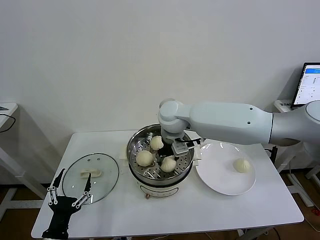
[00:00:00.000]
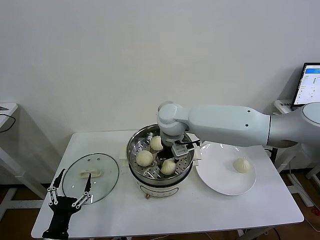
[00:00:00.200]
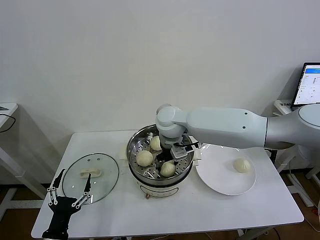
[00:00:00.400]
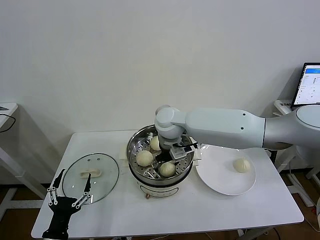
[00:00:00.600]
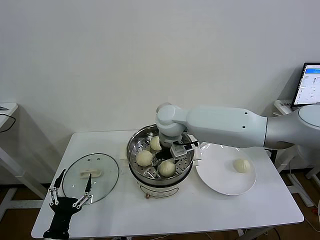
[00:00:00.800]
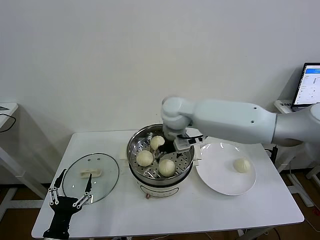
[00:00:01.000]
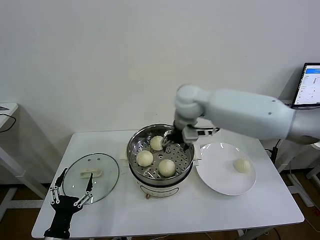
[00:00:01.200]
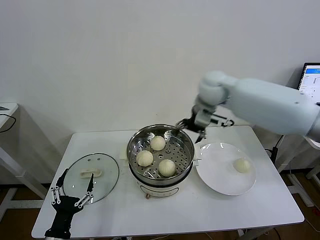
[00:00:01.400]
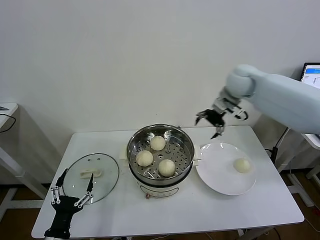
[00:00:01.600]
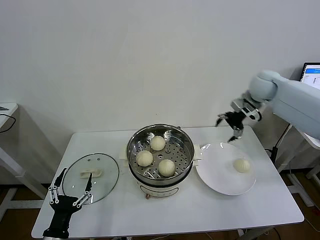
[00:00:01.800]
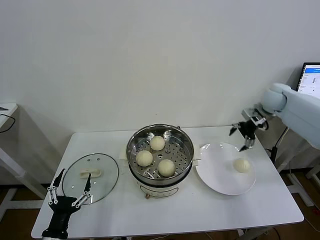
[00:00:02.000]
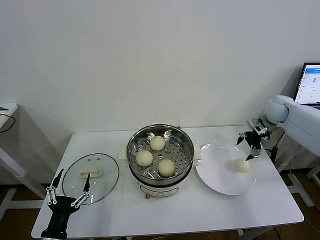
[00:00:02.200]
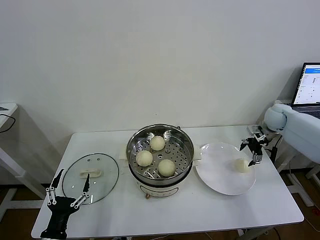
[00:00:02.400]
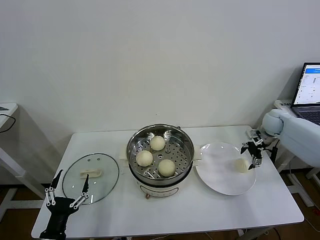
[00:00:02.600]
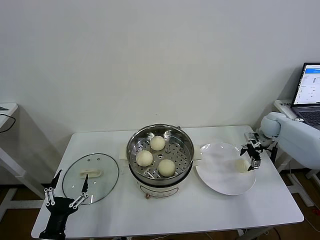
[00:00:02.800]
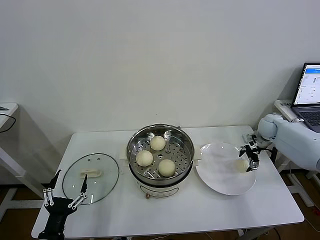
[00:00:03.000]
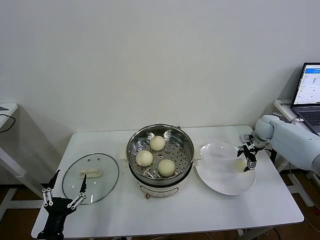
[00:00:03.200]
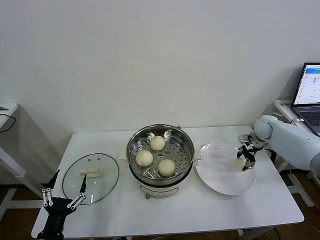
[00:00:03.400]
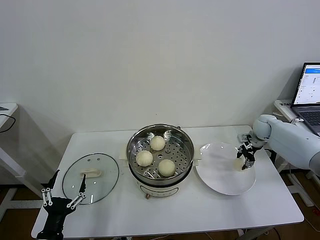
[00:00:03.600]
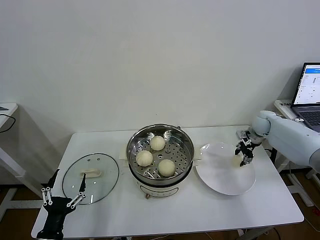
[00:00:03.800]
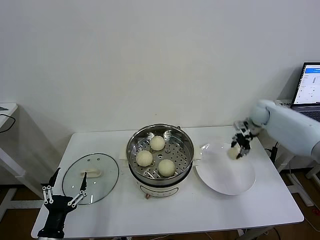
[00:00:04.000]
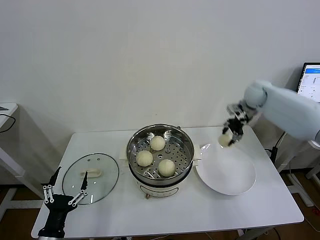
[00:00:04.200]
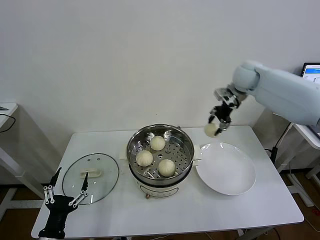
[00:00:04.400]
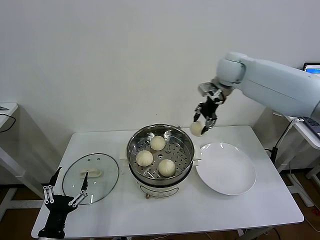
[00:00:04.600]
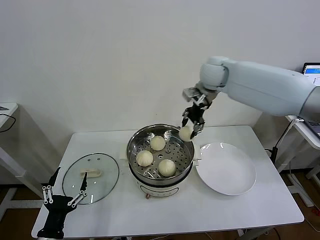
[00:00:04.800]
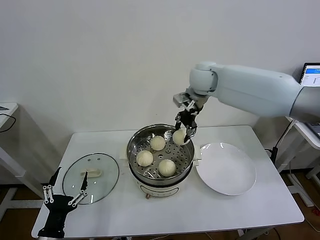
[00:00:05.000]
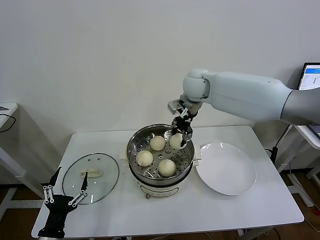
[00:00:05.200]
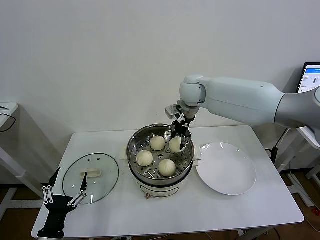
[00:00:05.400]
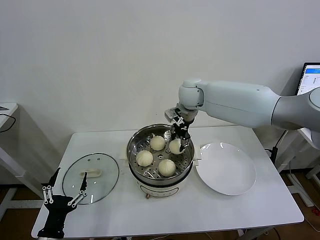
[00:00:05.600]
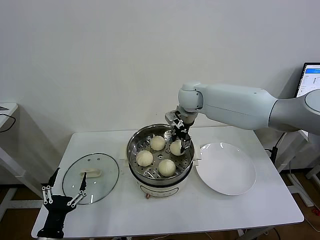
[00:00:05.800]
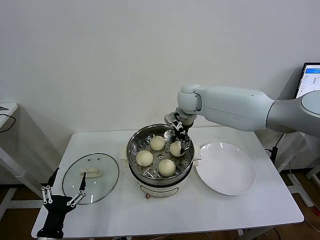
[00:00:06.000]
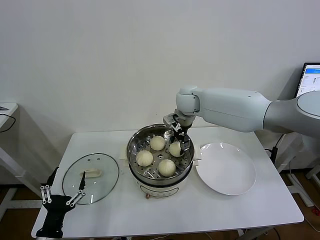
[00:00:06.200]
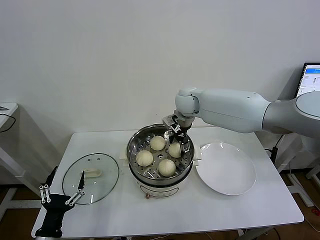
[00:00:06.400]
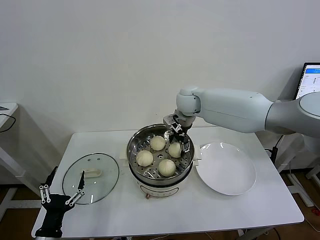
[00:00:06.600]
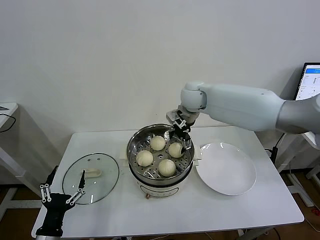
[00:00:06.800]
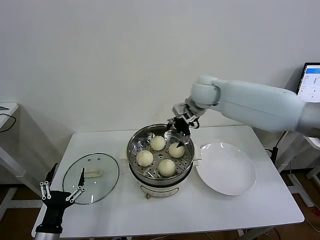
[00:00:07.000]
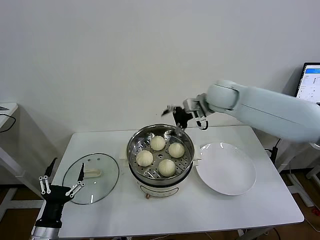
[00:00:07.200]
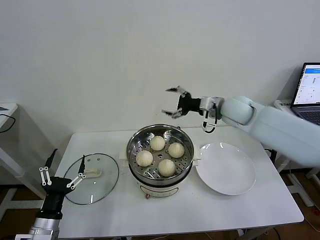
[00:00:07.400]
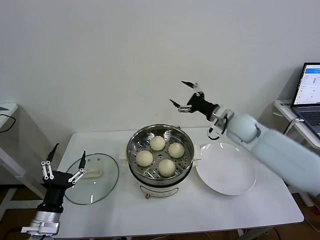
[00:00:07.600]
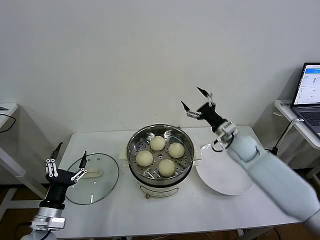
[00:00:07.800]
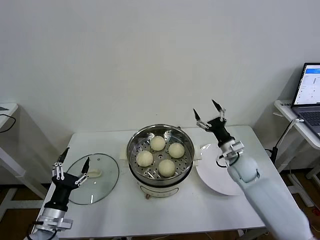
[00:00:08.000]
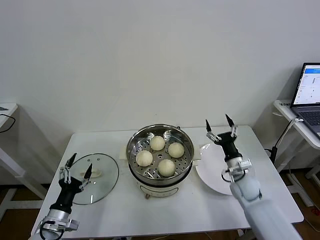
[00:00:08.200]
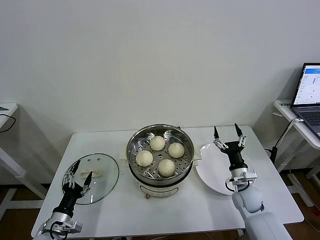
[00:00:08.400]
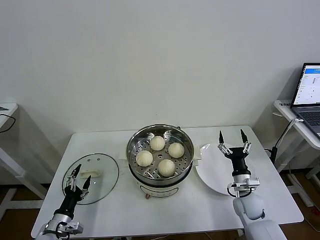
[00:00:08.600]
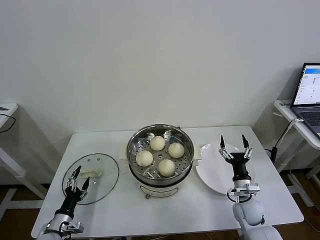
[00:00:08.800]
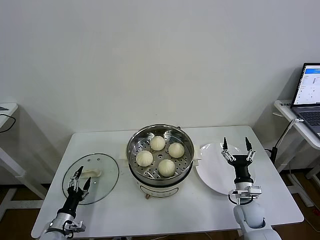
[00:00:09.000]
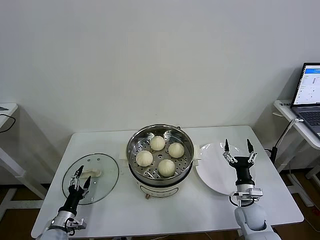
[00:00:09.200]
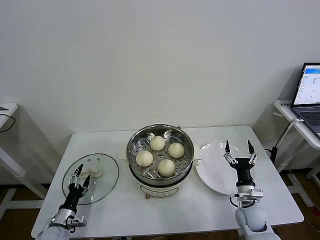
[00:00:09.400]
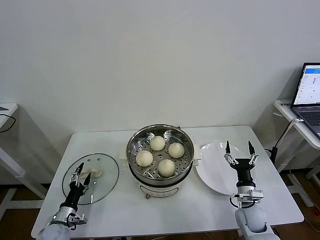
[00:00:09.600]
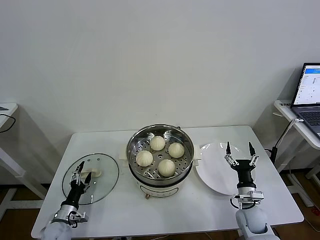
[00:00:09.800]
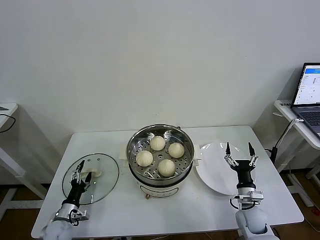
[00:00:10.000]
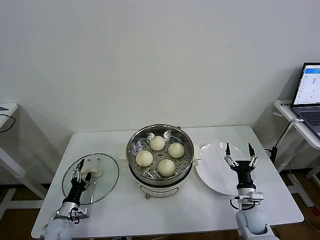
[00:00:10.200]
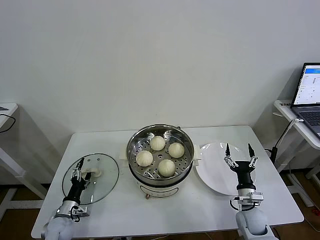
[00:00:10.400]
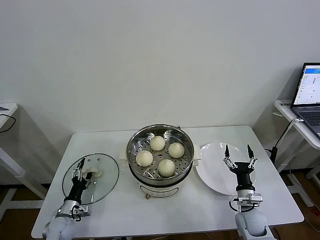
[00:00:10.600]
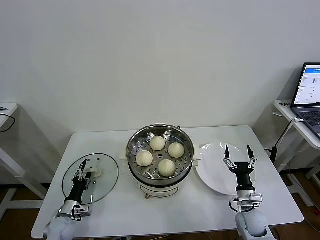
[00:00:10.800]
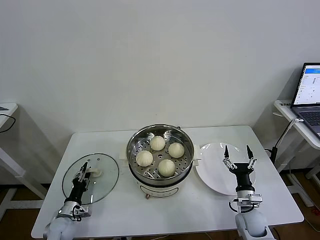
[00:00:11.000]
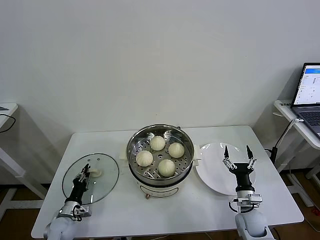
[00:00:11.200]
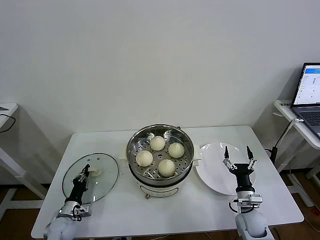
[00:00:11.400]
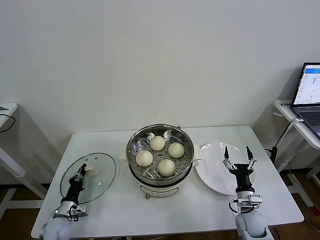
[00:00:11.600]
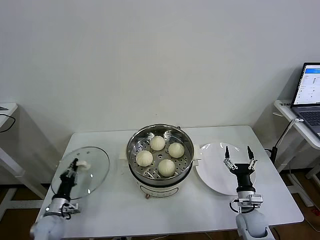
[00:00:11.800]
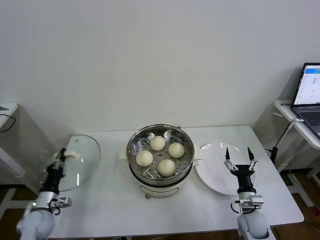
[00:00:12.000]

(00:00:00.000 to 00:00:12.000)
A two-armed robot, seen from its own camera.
Task of the whole recording: take steamed baozi put them in steamer then cover it.
Step, 00:00:00.800 - 00:00:03.400: Grasp the baozi in the plate with right gripper.
Step, 00:00:03.600 - 00:00:06.400: Place the baozi on the steamer with right gripper.
Step, 00:00:06.600 - 00:00:11.800: Grasp the pot lid with left gripper.
00:00:00.000 - 00:00:01.600: The right gripper is displaced to the right by approximately 25 cm, and opens up.
00:00:01.600 - 00:00:03.000: The right gripper shifts about 25 cm downward and to the right.
00:00:03.000 - 00:00:04.400: The right gripper moves upward and to the left, some 25 cm, and closes up.
00:00:04.400 - 00:00:06.000: The right gripper goes about 20 cm to the left and downward.
00:00:06.000 - 00:00:07.600: The right gripper moves to the right and backward, roughly 20 cm, and opens up. The left gripper is displaced forward by about 5 cm.
00:00:07.600 - 00:00:09.000: The left gripper goes approximately 15 cm downward, while the right gripper moves downward and backward, about 30 cm.
00:00:09.000 - 00:00:10.400: The left gripper heads forward, covering some 5 cm.
00:00:10.400 - 00:00:12.000: The left gripper shifts about 5 cm upward, and closes its fingers.

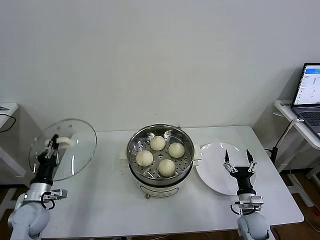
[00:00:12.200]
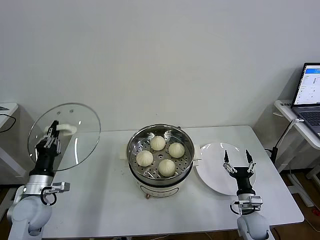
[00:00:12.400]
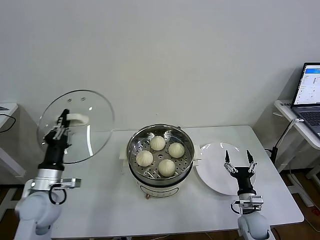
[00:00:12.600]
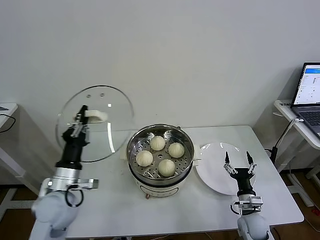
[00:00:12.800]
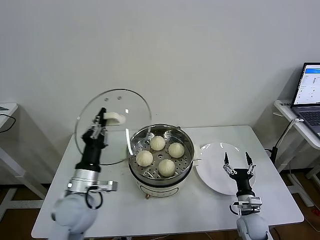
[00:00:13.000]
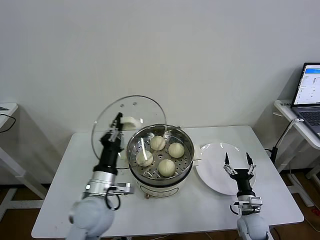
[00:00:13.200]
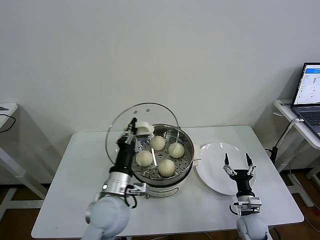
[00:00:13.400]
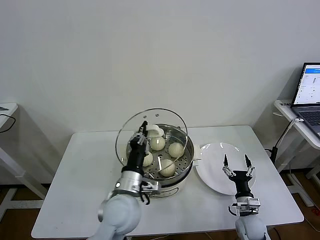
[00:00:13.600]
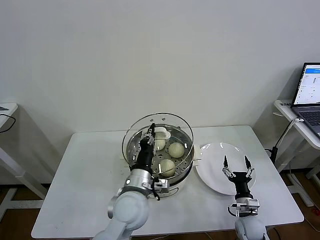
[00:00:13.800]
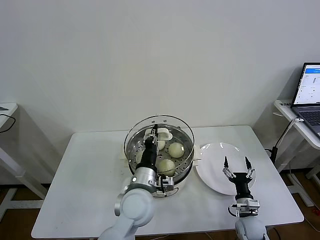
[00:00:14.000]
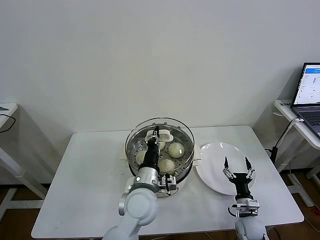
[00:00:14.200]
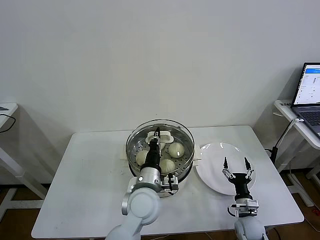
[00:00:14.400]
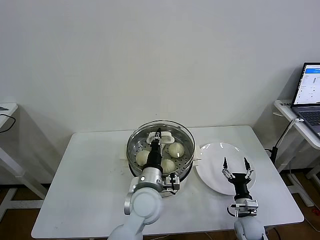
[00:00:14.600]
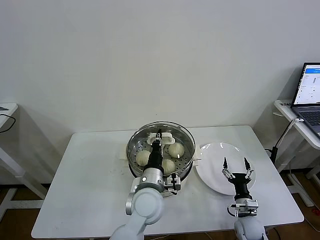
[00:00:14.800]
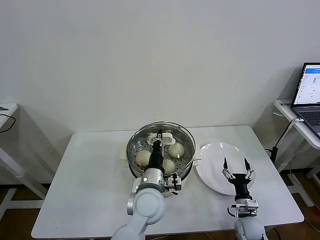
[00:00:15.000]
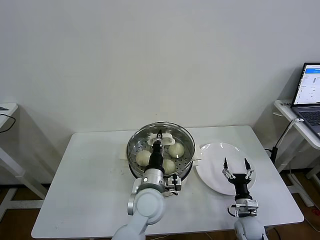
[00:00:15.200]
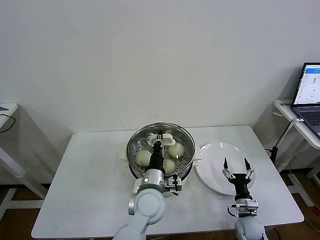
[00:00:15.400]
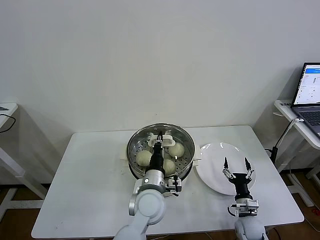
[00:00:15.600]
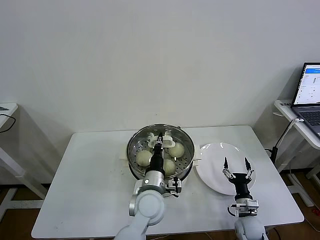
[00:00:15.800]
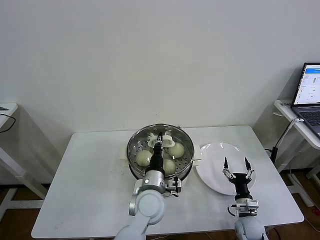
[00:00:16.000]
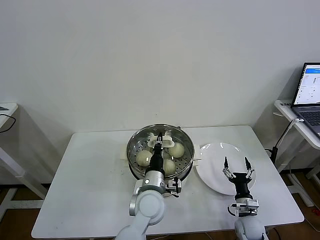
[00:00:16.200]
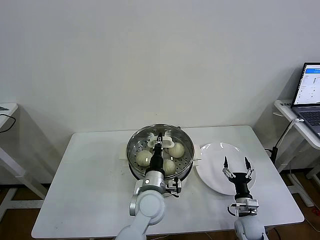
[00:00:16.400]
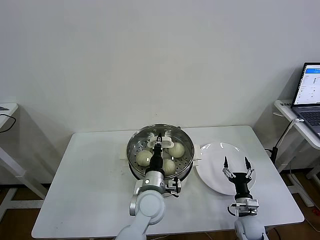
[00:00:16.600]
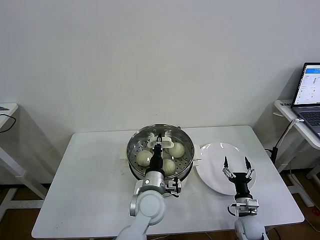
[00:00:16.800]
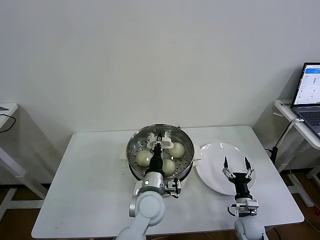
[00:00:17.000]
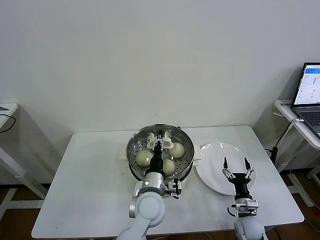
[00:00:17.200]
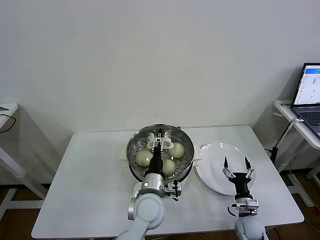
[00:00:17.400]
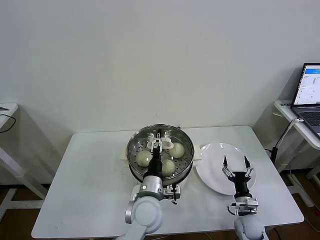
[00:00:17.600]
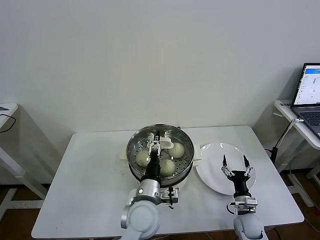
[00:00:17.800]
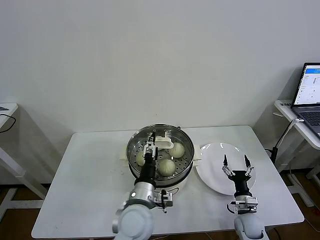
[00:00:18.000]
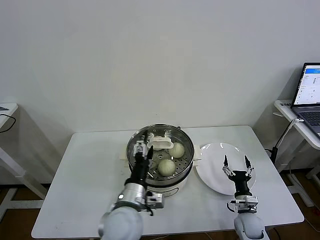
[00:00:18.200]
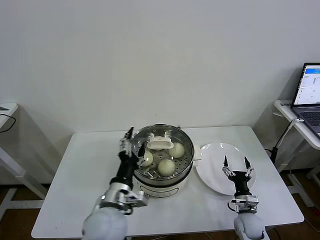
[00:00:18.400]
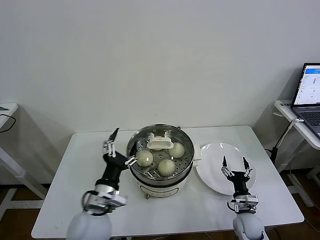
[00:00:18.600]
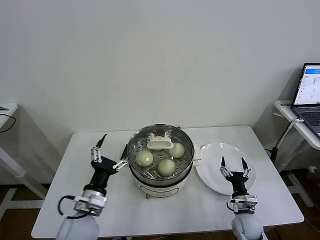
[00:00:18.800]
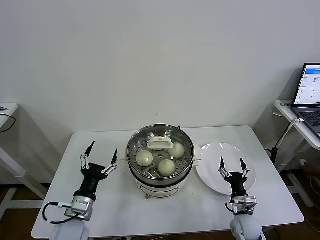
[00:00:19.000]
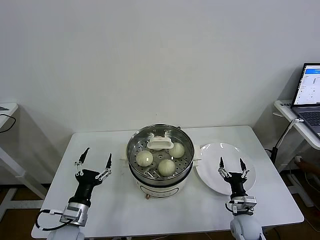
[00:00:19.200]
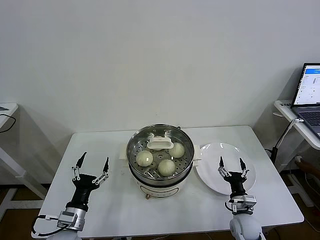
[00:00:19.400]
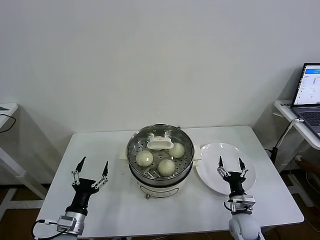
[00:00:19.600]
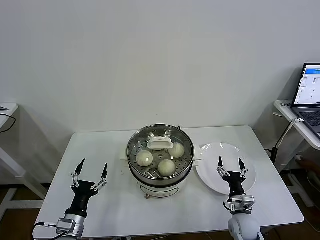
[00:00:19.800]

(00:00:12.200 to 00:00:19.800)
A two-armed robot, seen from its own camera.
Task of the whole recording: take steamed baozi put them in steamer then cover it.
Step, 00:00:12.200 - 00:00:17.400: Place the pot lid on the steamer with left gripper.
00:00:12.200 - 00:00:13.800: The left gripper travels to the right by about 30 cm.
00:00:13.800 - 00:00:15.200: The left gripper shifts approximately 5 cm to the right.
00:00:15.200 - 00:00:16.800: The grippers stay close to where they were, moving slightly.
00:00:16.800 - 00:00:18.200: The left gripper is displaced backward and to the left by roughly 10 cm, and opens.
00:00:18.200 - 00:00:19.800: The left gripper shifts some 25 cm to the left and downward.
